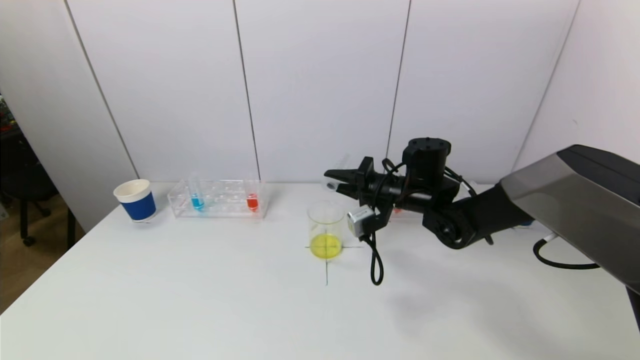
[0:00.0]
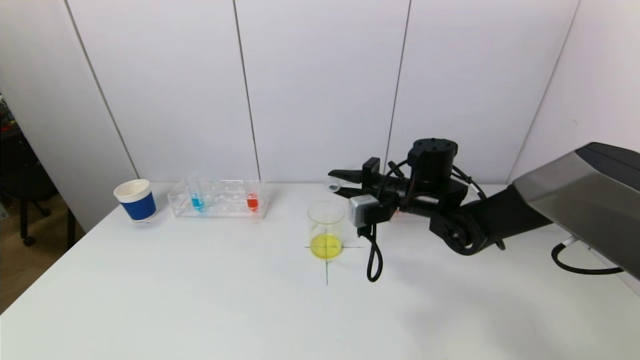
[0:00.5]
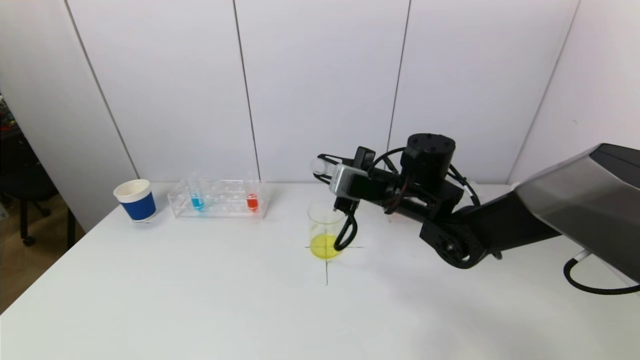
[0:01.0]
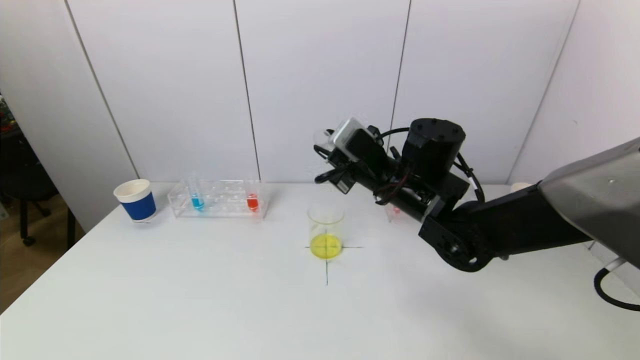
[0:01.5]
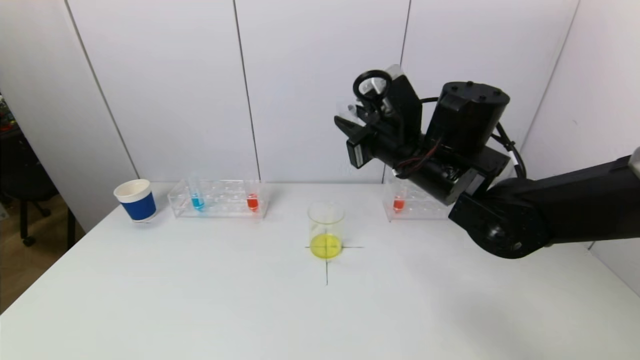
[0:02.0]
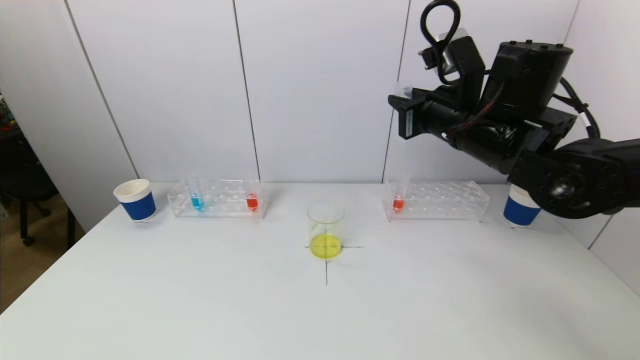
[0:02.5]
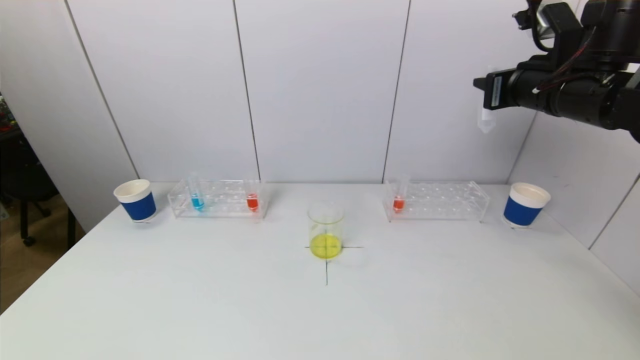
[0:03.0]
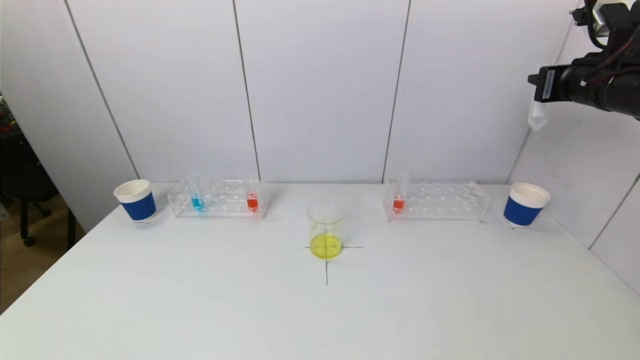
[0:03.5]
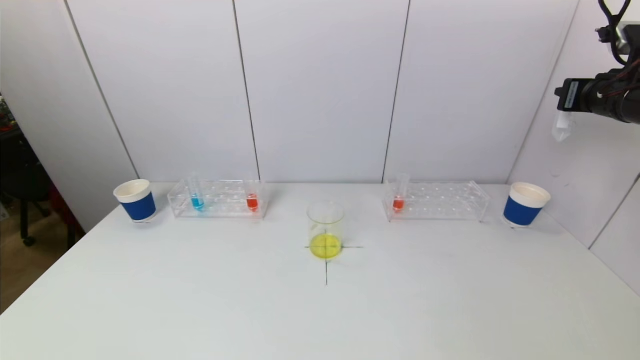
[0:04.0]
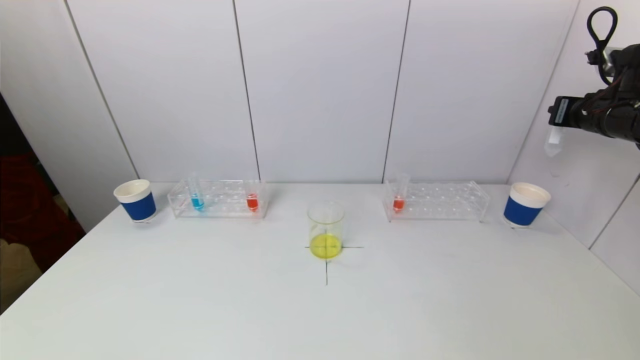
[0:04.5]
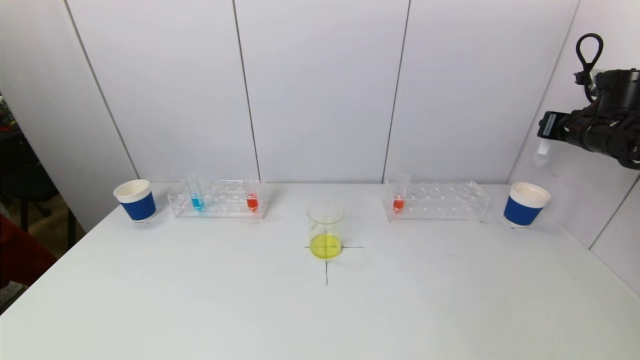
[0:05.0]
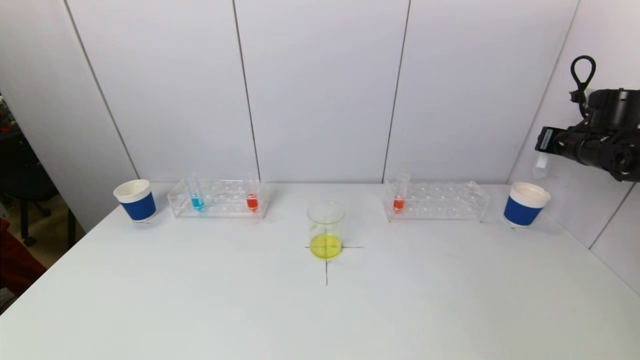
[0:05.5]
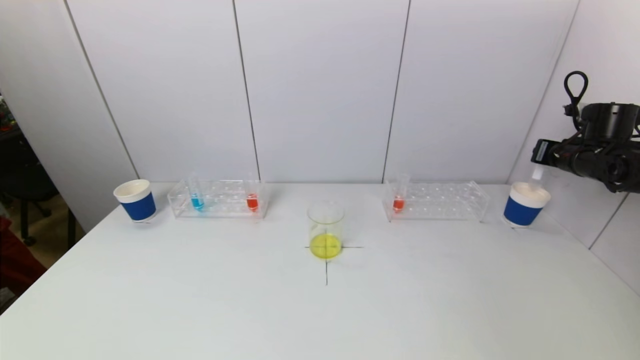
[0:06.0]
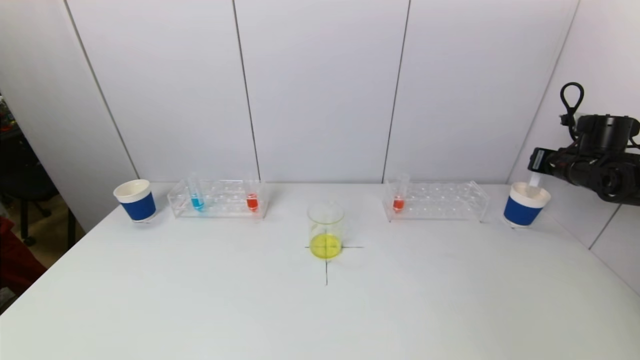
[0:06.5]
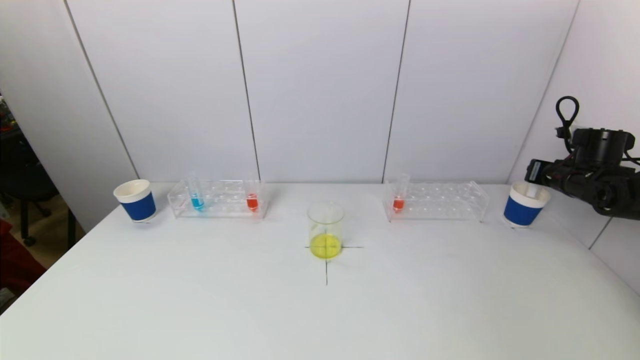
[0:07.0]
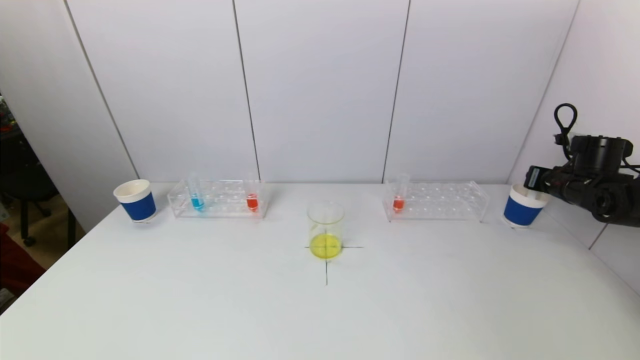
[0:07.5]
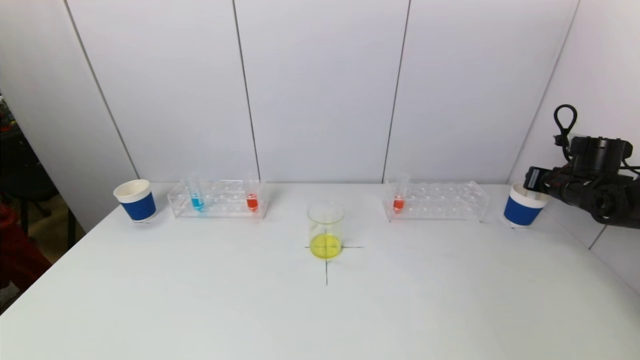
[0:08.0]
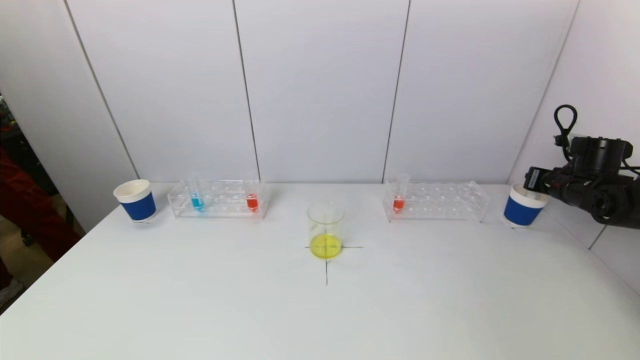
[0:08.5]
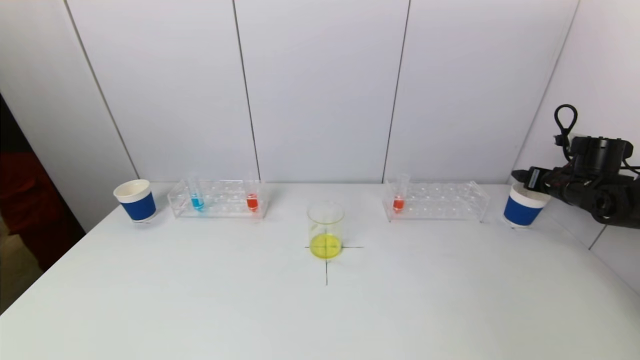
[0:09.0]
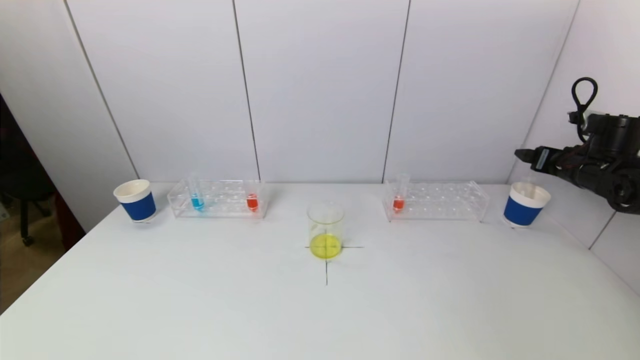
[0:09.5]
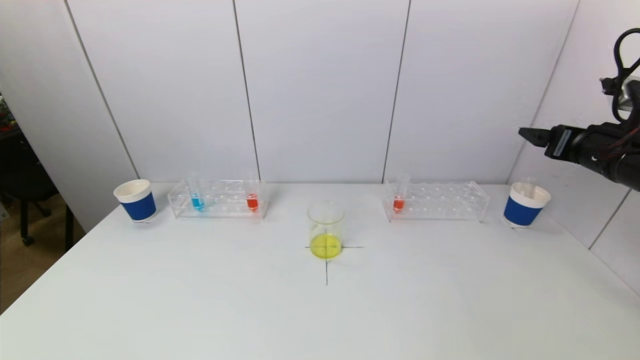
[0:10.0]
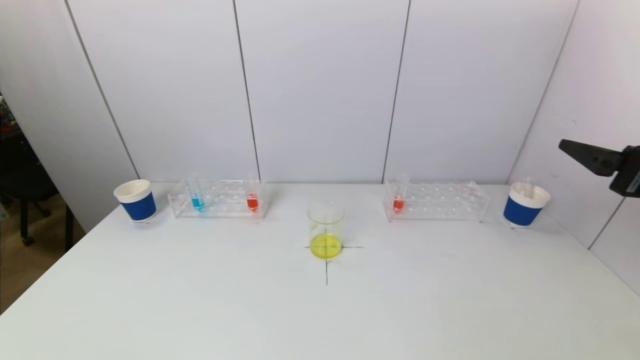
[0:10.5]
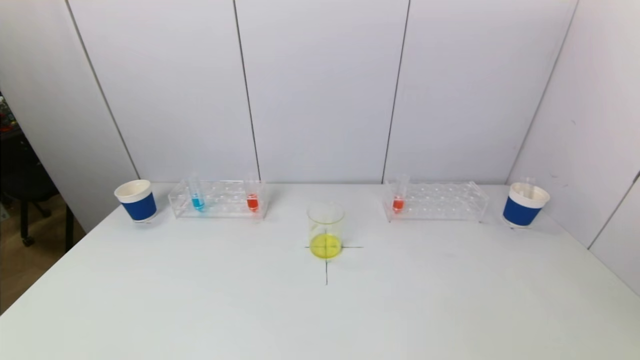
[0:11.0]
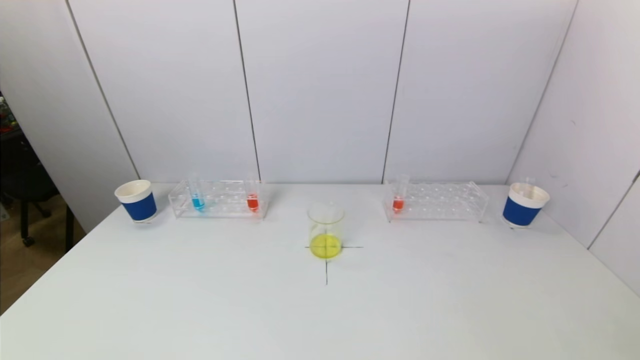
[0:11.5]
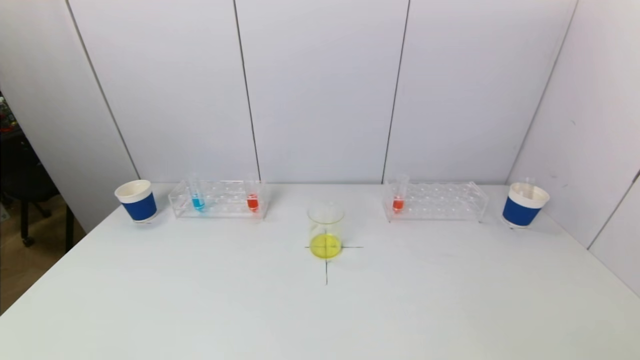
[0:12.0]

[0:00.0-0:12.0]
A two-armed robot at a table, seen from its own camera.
Task of the whole recording: pick up a test tube with pigment on left test tube rack and a test tube with pigment on right test tube rack by grippers and pour them into the beaker.
Step, 0:00.0 to 0:09.0: Place the test tube into the paper cup with the right gripper.
0:00.0 to 0:02.0: The right gripper moves upward and backward, about 15 cm.
0:02.0 to 0:04.0: The right gripper goes about 30 cm to the right.
0:04.0 to 0:06.0: The right gripper travels downward, forward and to the right by about 15 cm.
0:06.0 to 0:08.0: The right gripper goes approximately 5 cm downward.
0:08.0 to 0:10.0: The right gripper travels upward, backward and to the left by about 20 cm, and opens up.
0:10.0 to 0:12.0: The right gripper travels backward by about 35 cm.

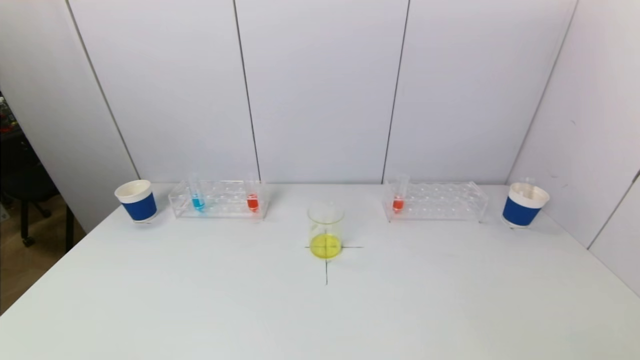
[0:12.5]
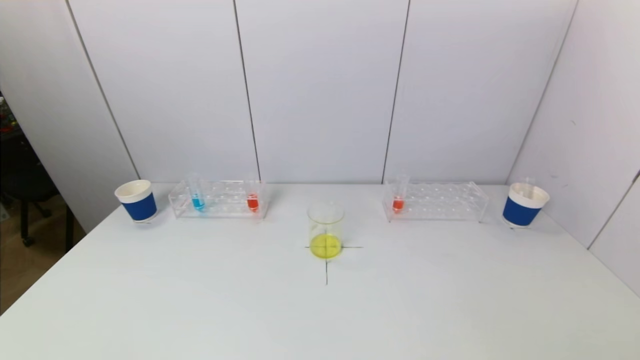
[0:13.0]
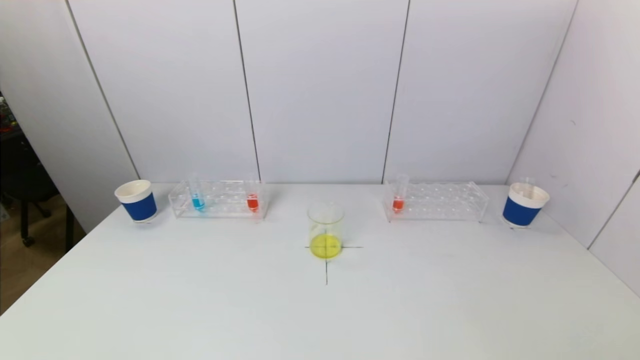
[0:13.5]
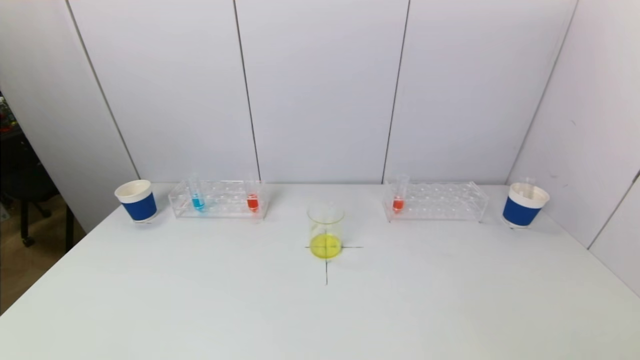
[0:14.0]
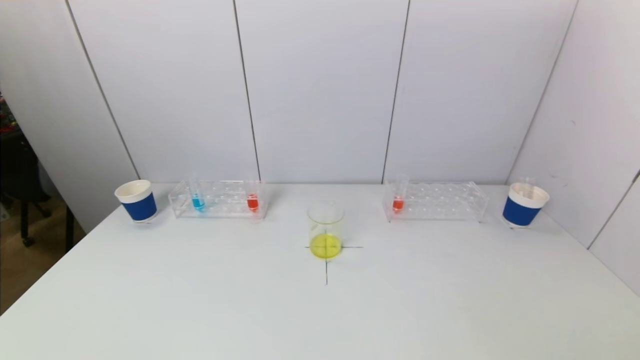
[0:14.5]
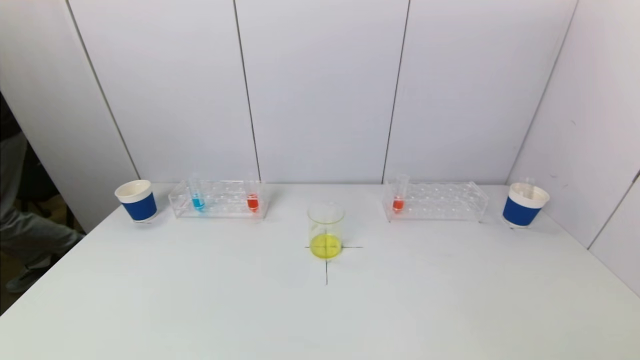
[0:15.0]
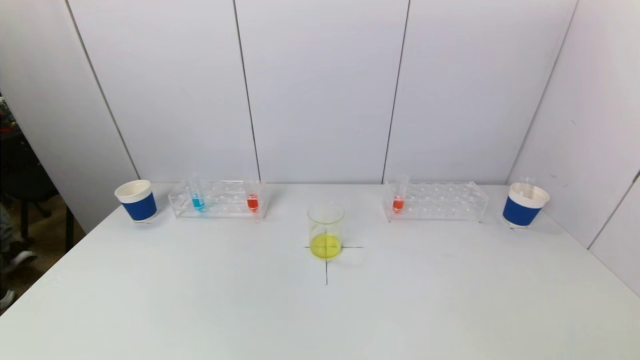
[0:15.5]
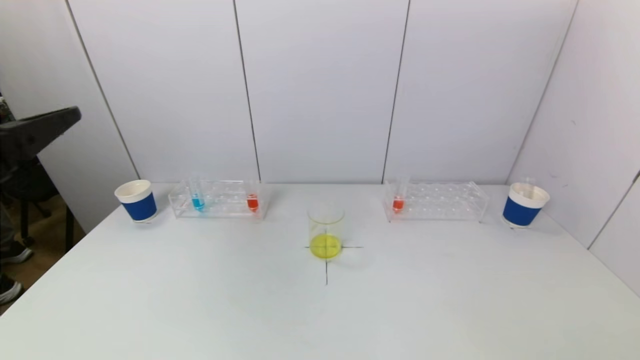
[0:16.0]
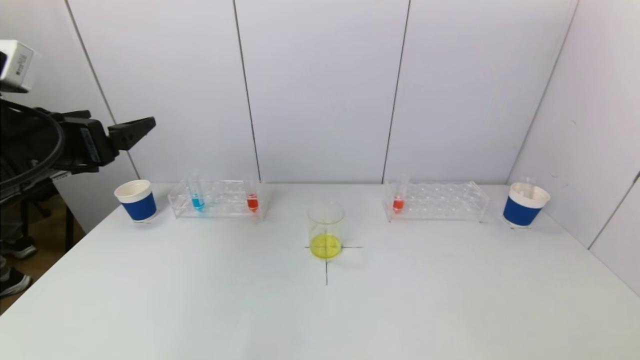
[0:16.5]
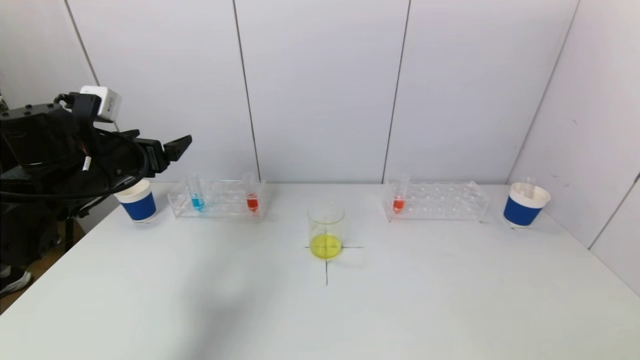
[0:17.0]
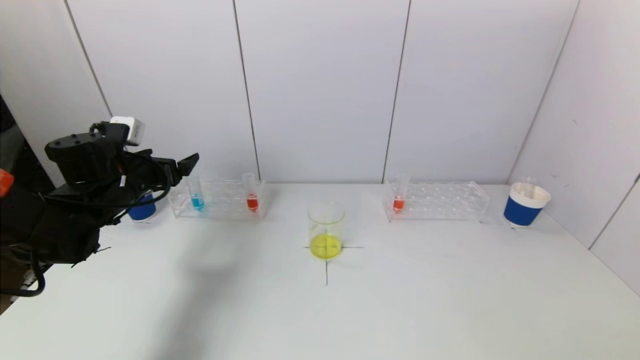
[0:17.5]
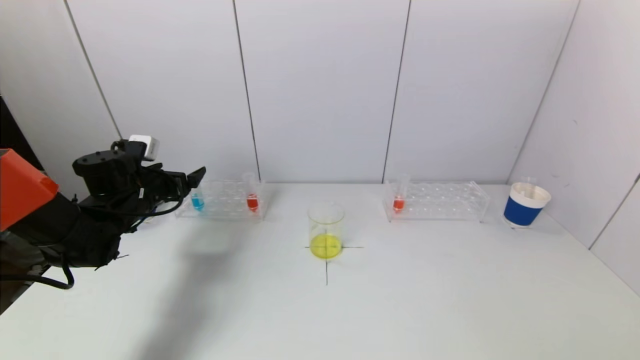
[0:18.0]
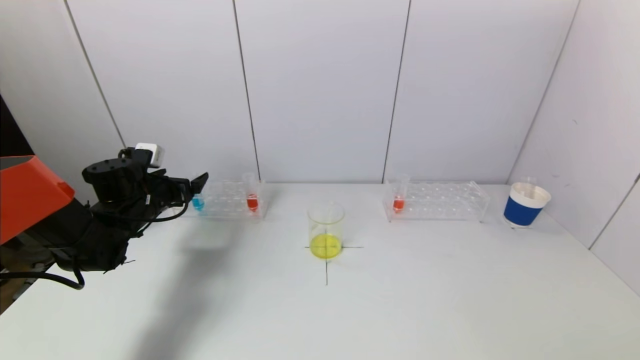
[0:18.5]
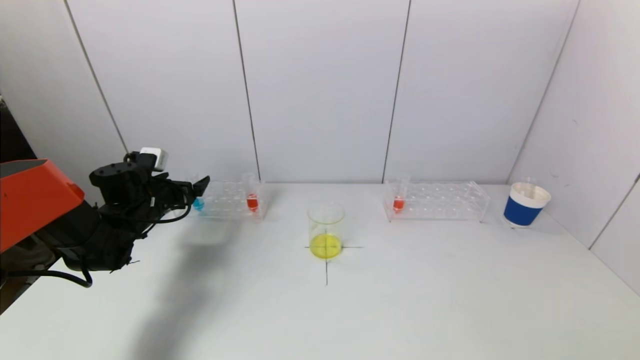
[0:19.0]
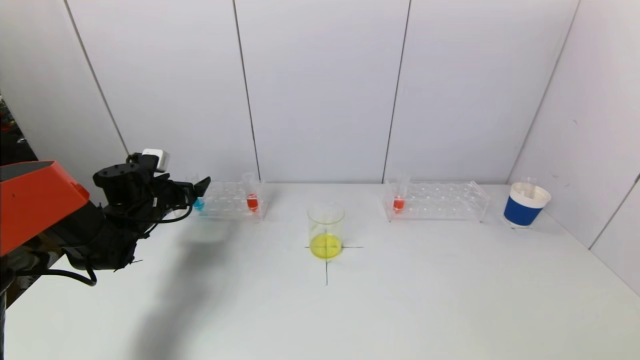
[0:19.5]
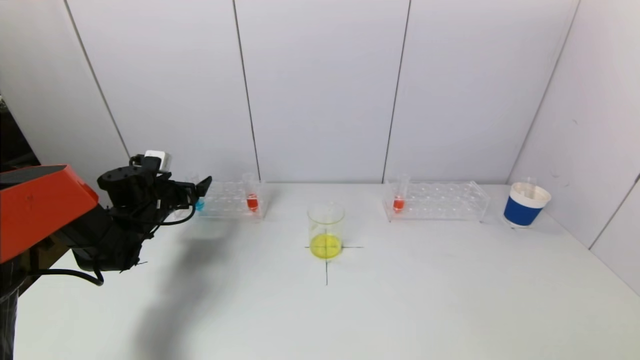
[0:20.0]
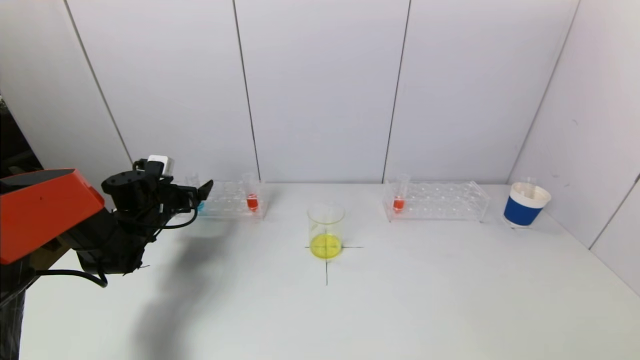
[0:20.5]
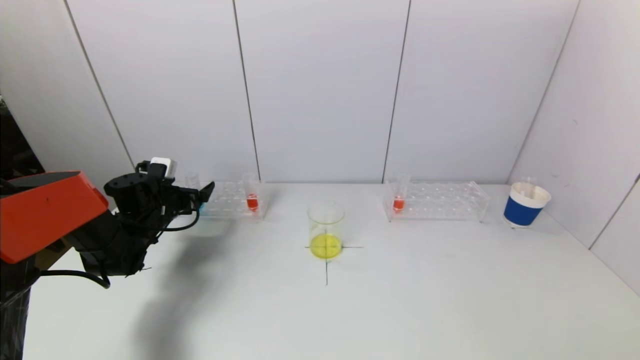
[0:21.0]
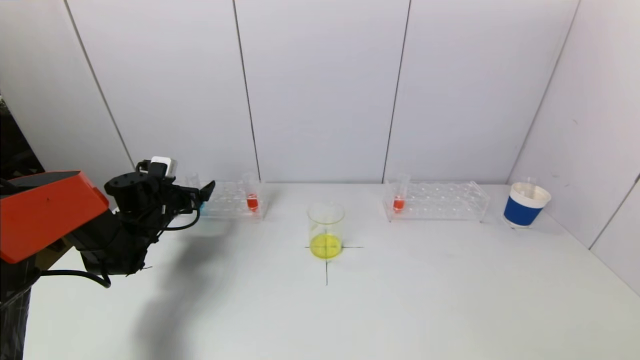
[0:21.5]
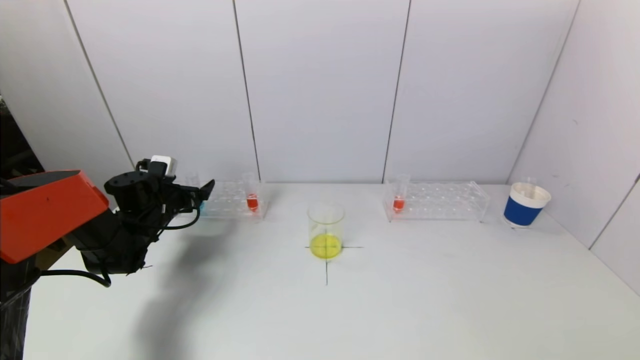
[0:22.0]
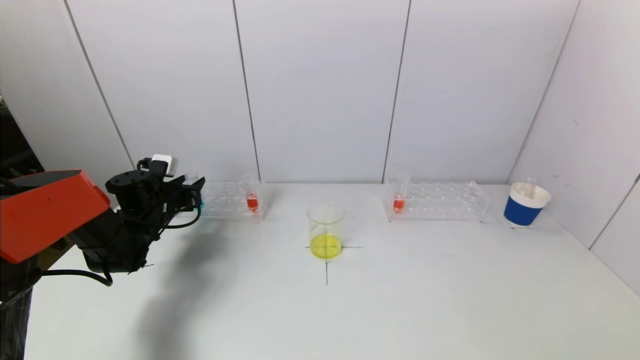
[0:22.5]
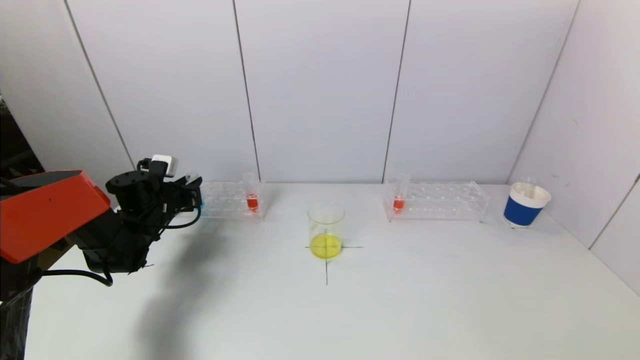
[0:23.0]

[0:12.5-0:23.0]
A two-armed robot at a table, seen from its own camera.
Task of the whole recording: pick up a test tube with pigment on left test tube rack and a test tube with pigment on right test tube rack by grippers and pour them into the beaker.
Step, 0:12.5 to 0:22.5: Grasp the blue reagent with the left gripper.
0:14.5 to 0:16.5: The left gripper is displaced forward and upward by approximately 30 cm.
0:16.5 to 0:19.0: The left gripper moves downward and forward, approximately 25 cm.
0:19.0 to 0:21.0: There are only small adjustments of the grippers.
0:21.0 to 0:23.0: The left gripper closes its fingers.
